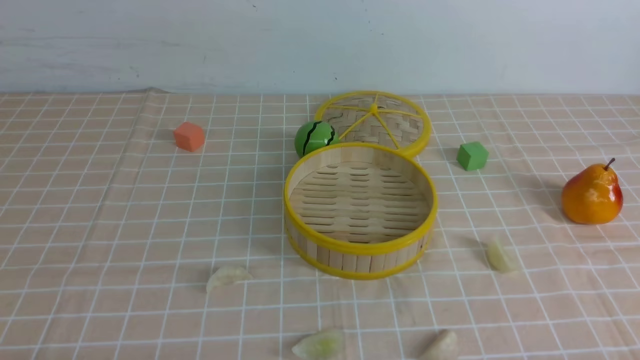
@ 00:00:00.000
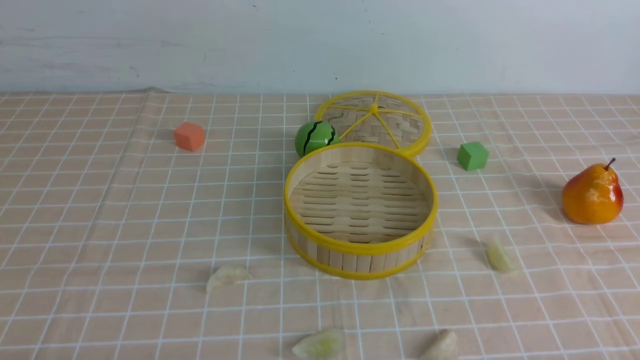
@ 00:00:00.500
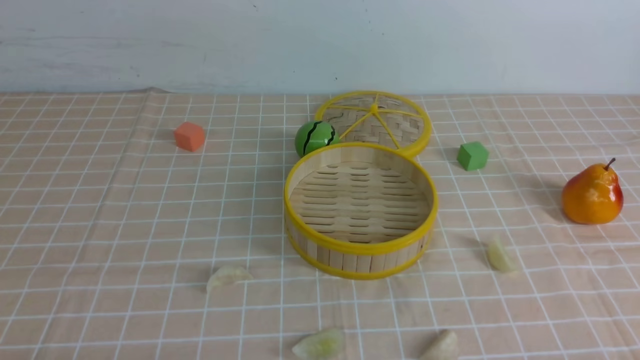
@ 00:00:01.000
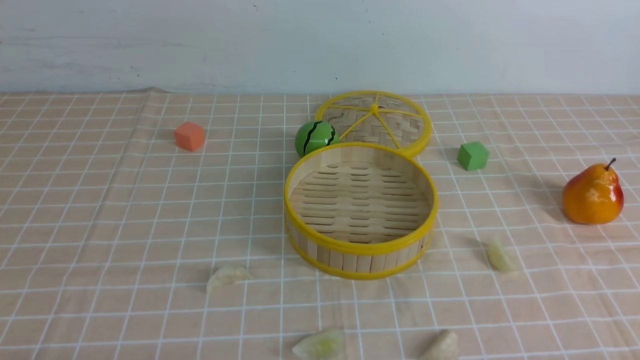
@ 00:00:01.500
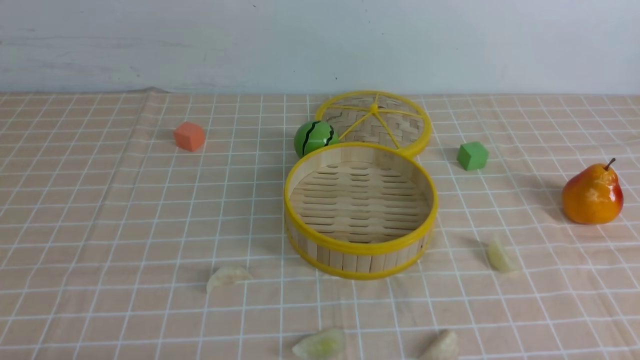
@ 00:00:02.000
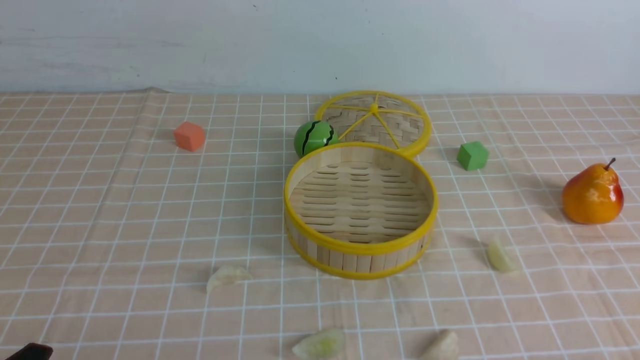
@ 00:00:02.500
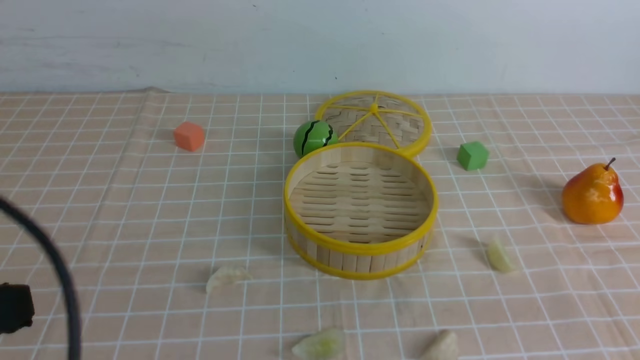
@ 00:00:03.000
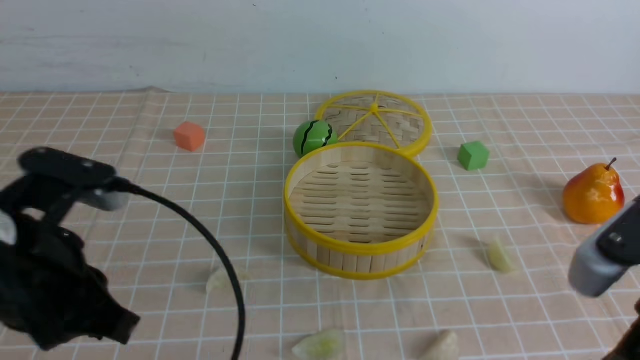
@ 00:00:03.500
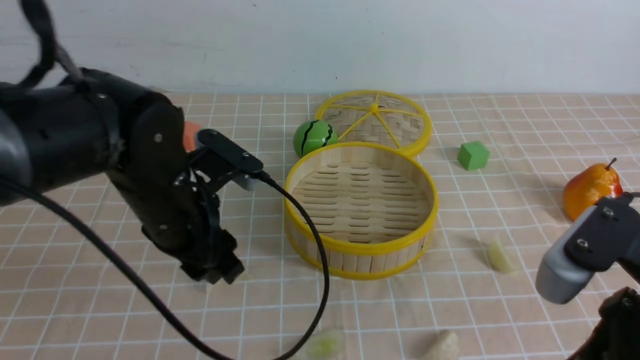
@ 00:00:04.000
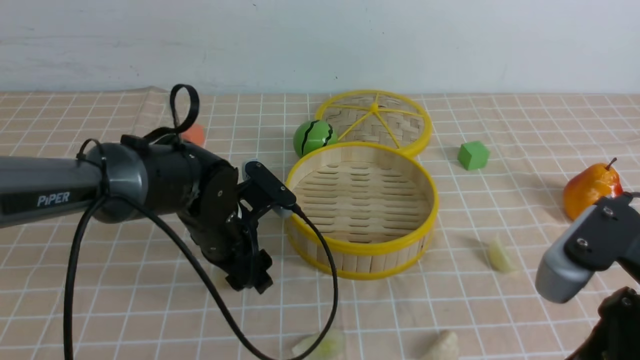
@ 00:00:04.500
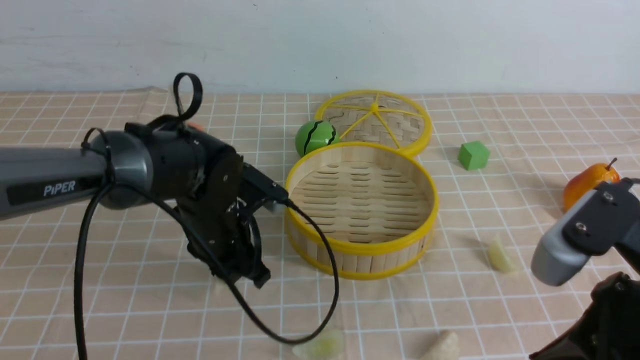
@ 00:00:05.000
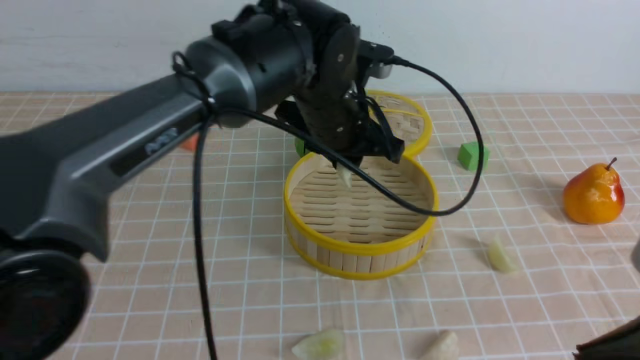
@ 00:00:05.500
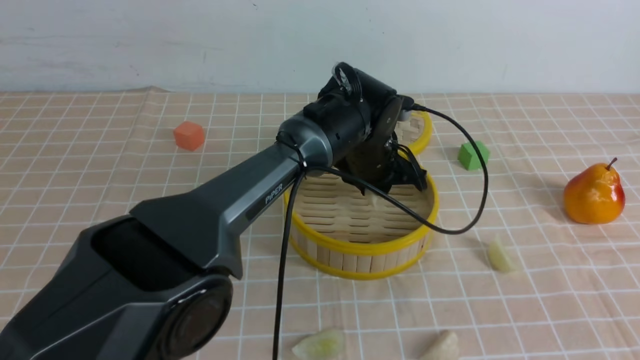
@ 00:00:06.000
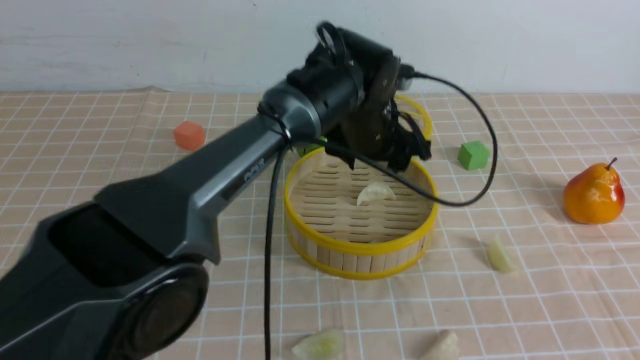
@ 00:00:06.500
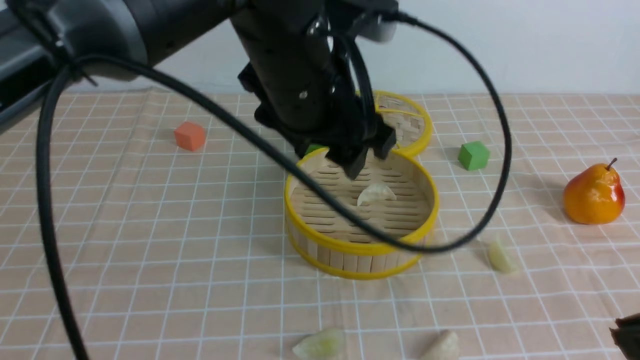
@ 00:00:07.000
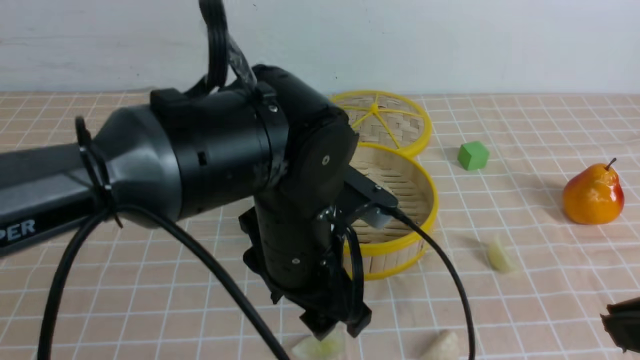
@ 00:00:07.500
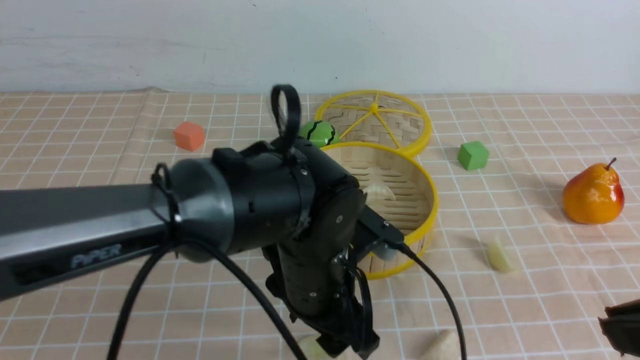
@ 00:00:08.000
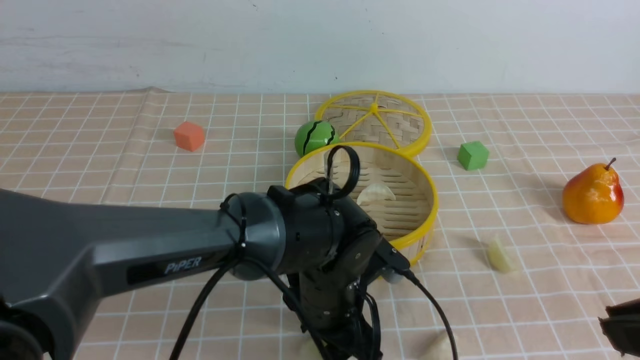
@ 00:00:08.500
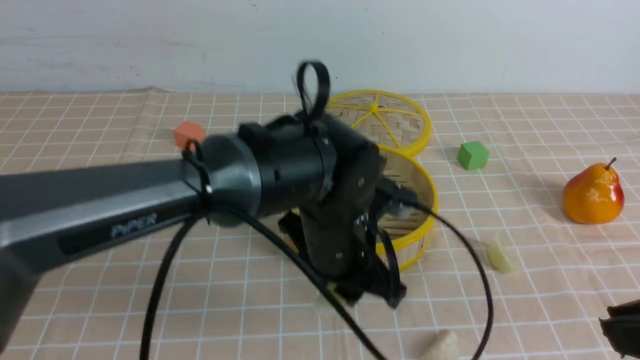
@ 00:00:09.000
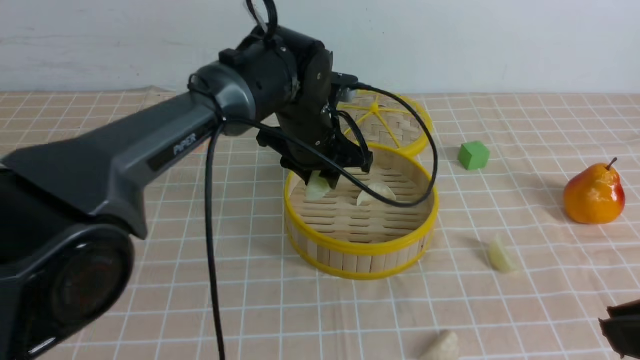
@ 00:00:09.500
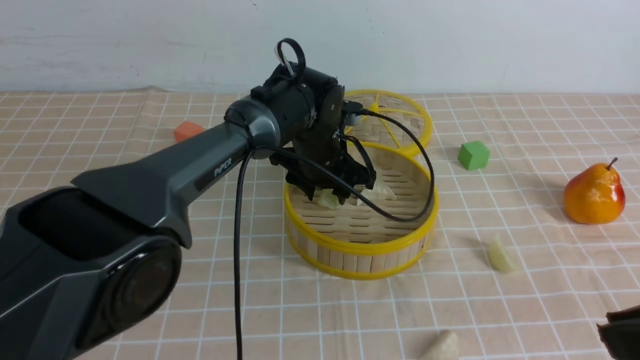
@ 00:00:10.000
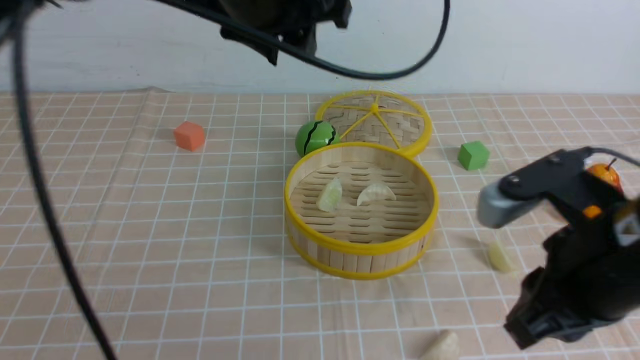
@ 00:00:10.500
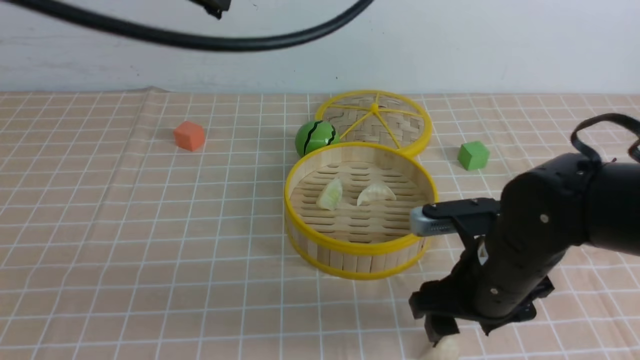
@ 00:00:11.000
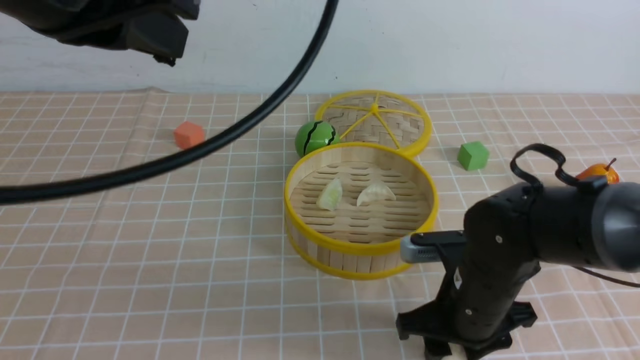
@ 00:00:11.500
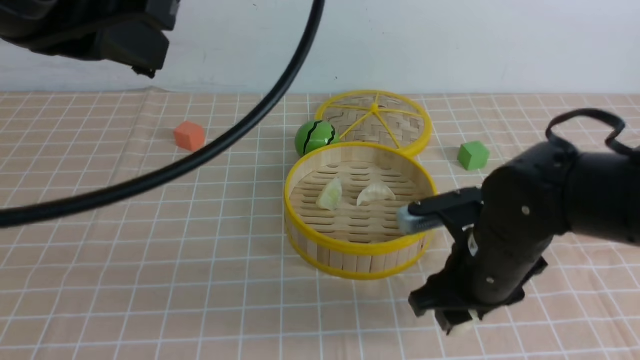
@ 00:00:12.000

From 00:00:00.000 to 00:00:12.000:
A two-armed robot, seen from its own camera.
Task of the whole recording: put the dumplings into the steamer on the table with the brown tablecloth.
Step, from 00:00:00.000 to 00:00:04.500: use the left arm to grab a dumpling.
Step, from 00:00:05.000 to 00:00:06.500: use the left arm to put the dumpling into the steamer.
Step, from 00:00:07.000 to 00:00:08.500: use the left arm to grab a dumpling.
Step, from 00:00:09.000 to 00:00:10.000: use the left arm to put the dumpling into the steamer.
Step, from 00:00:10.500 to 00:00:11.500: use the right arm to grab a dumpling.
From 00:00:02.000 to 00:00:04.000: The left gripper shifts approximately 30 cm forward and to the right, and closes, then reopens, while the right gripper moves upward, to the left and forward, about 20 cm, and closes its fingers.
From 00:00:04.000 to 00:00:06.000: The right gripper heads backward, covering about 5 cm; the left gripper heads to the right and forward, covering some 25 cm.
From 00:00:06.000 to 00:00:08.000: The left gripper heads backward, covering approximately 20 cm, and opens.
From 00:00:08.000 to 00:00:10.000: The left gripper travels forward by approximately 20 cm.
From 00:00:10.000 to 00:00:12.000: The left gripper moves backward, upward and to the left, approximately 40 cm, and closes up. The right gripper is displaced forward, downward and to the left by some 25 cm, and opens its fingers.

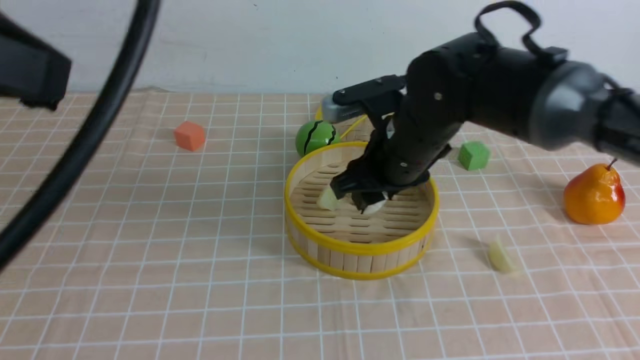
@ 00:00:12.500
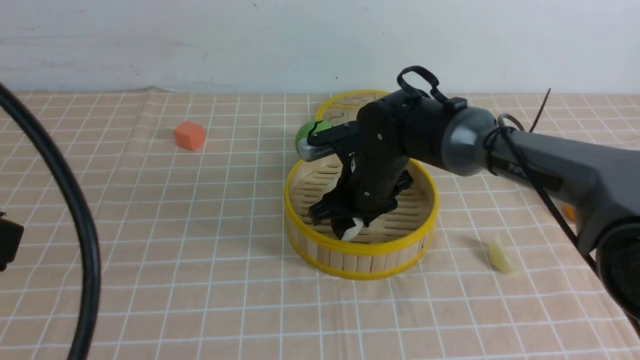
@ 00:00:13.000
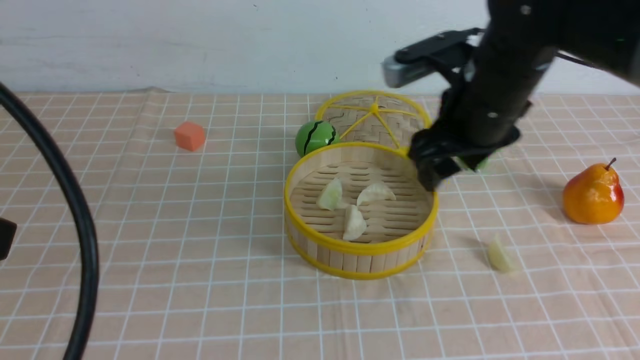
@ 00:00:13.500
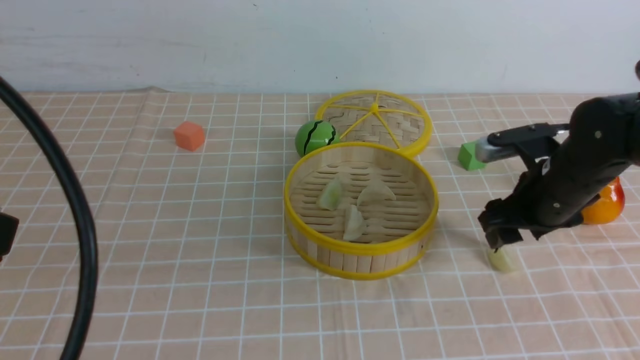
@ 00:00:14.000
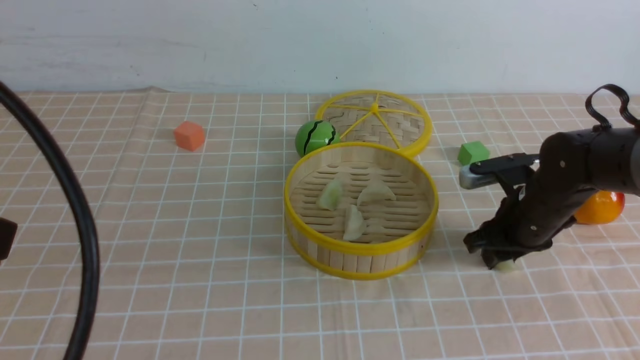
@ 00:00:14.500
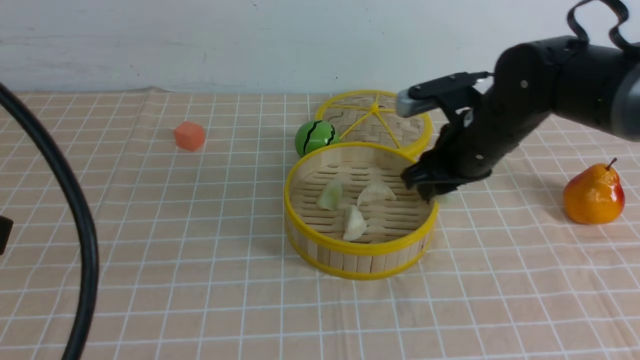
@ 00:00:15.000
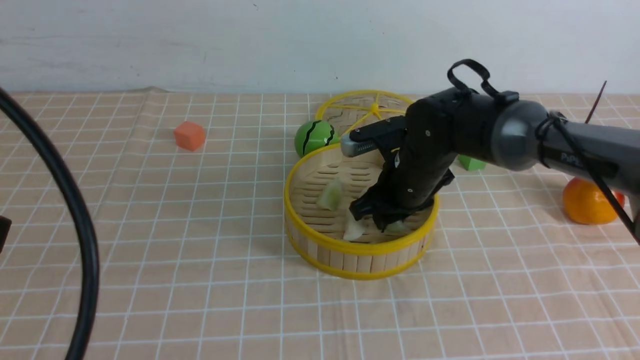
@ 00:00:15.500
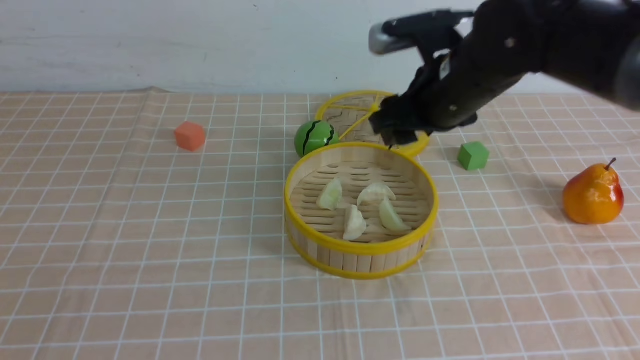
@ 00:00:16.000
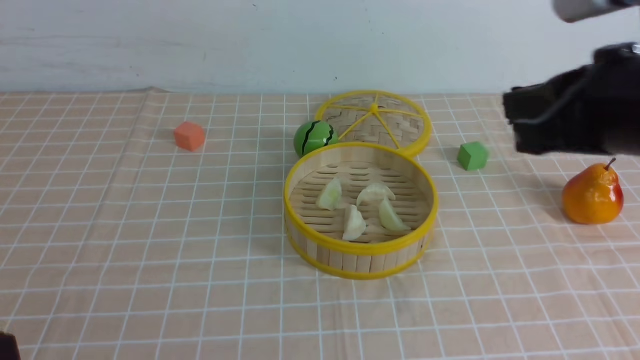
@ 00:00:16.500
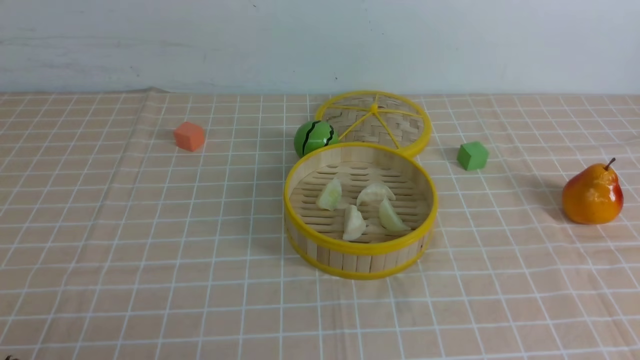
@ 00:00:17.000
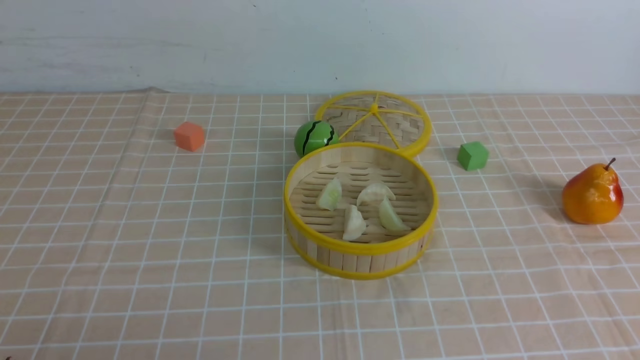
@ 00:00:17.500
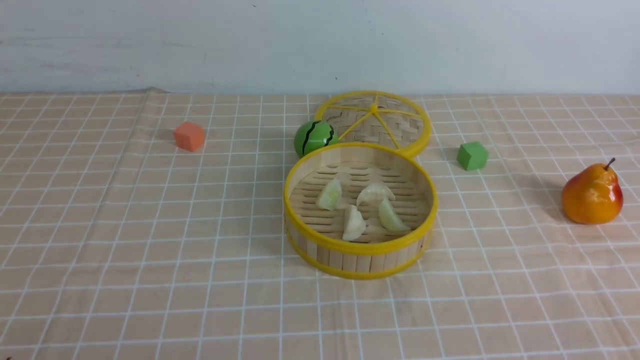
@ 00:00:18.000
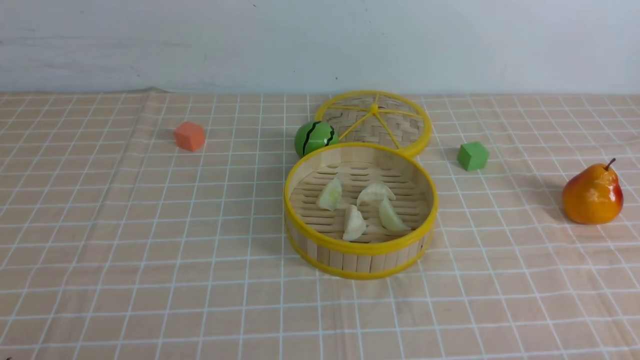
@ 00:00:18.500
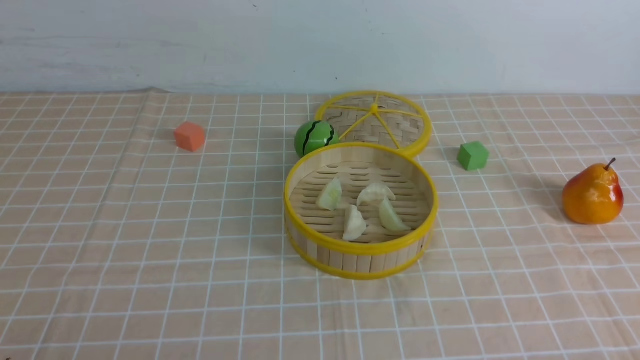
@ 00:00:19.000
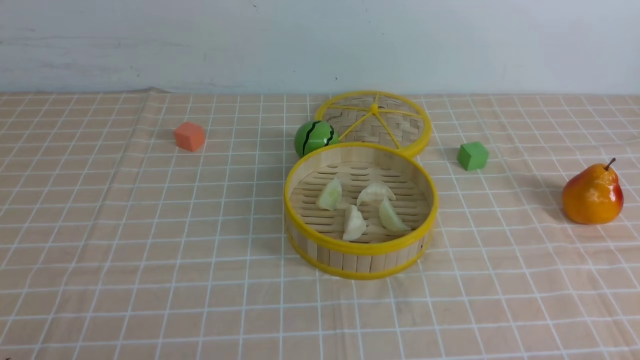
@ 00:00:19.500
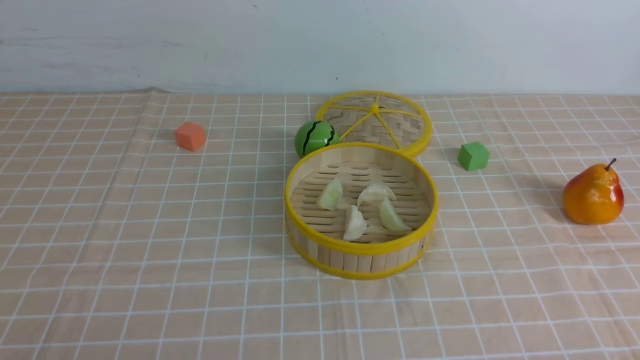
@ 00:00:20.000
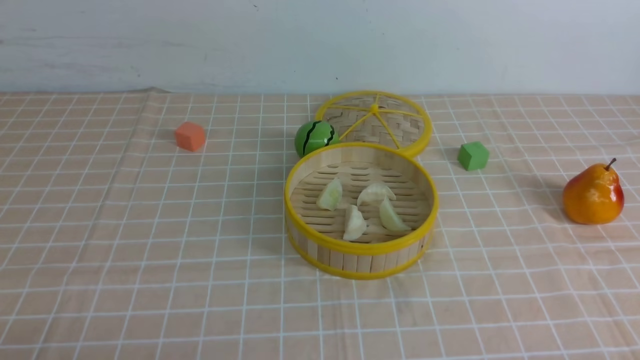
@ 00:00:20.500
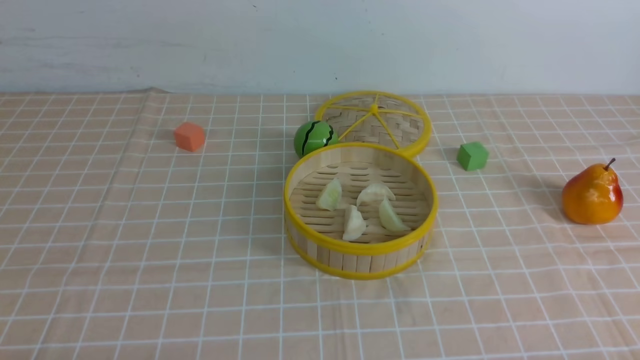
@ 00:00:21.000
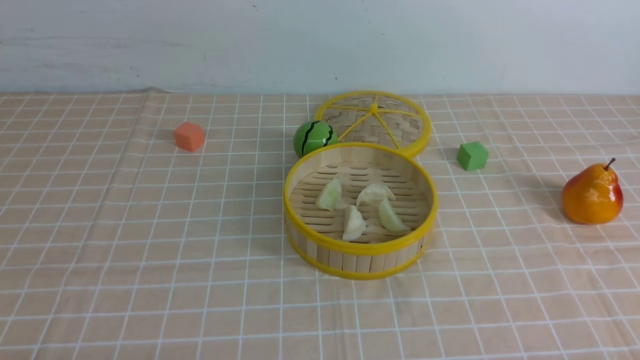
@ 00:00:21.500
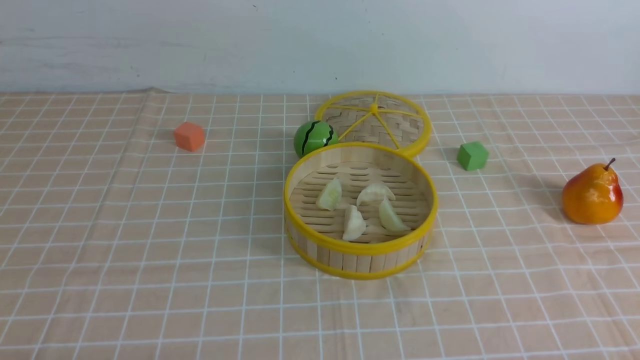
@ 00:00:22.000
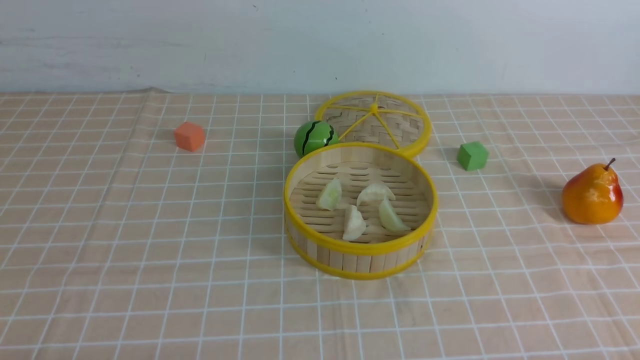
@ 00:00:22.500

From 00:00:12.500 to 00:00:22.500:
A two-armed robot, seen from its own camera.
Task of the whole recording: put the dumplings into the steamer on the table with the brown tablecloth.
Step, from 00:00:13.500 to 00:00:14.500: use the right arm to grab a dumpling.
Step, from 00:00:15.000 to 00:00:15.500: use the right arm to put the dumpling into the steamer.
From 00:00:12.500 to 00:00:14.500: The right gripper travels to the right and downward by roughly 20 cm. Meanwhile the left gripper moves downward, roughly 5 cm.
From 00:00:14.500 to 00:00:16.500: The right gripper swings up and down, roughly 25 cm each way, with 2 reversals, and closes up. The left gripper is displaced downward and backward by about 15 cm.
From 00:00:16.500 to 00:00:18.500: The right gripper is displaced downward, backward and to the right by about 30 cm.
